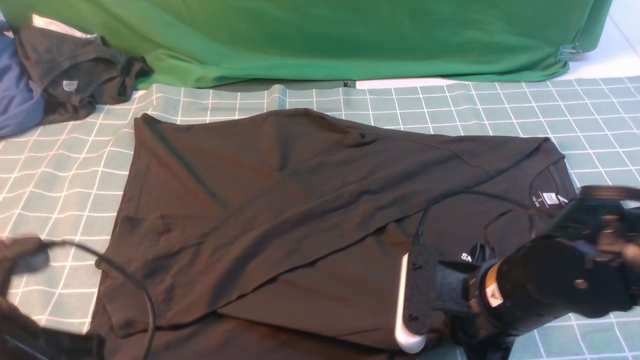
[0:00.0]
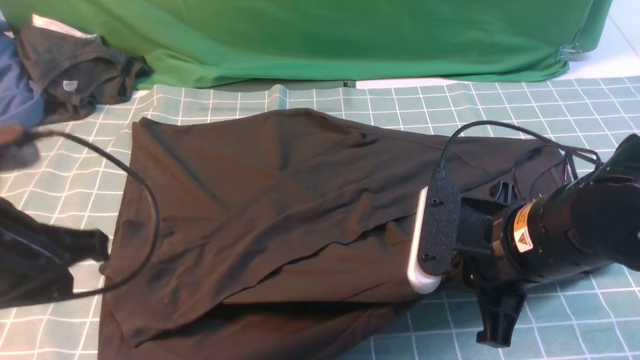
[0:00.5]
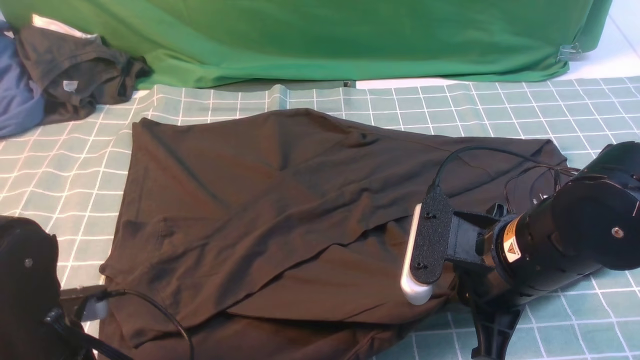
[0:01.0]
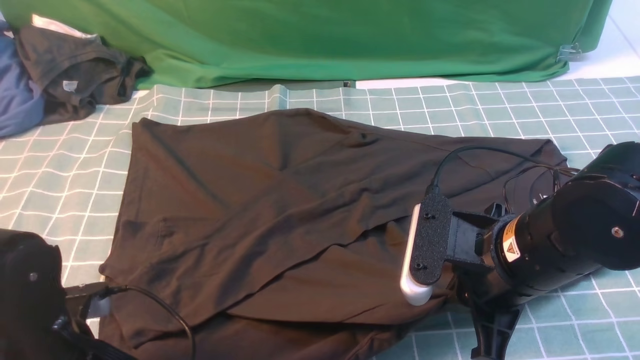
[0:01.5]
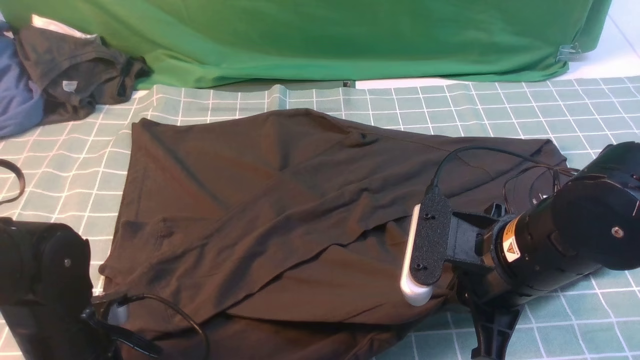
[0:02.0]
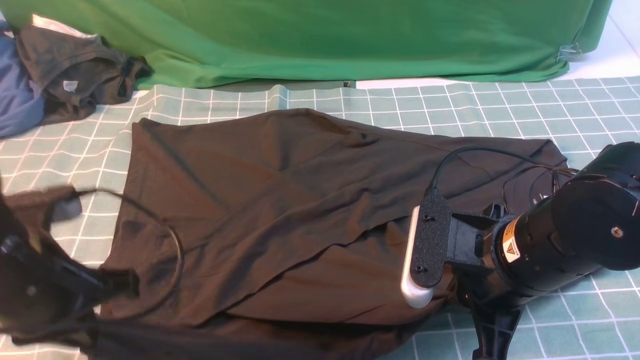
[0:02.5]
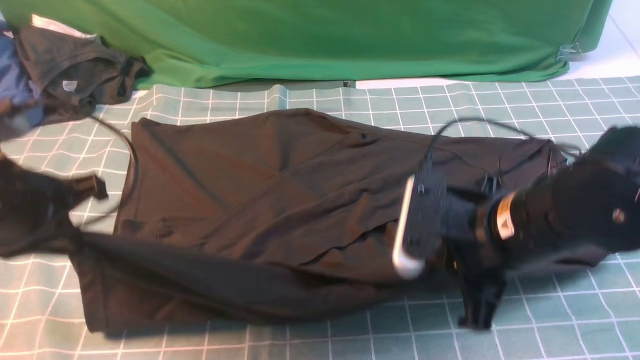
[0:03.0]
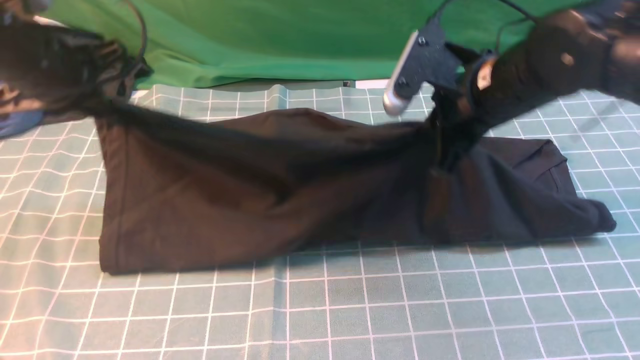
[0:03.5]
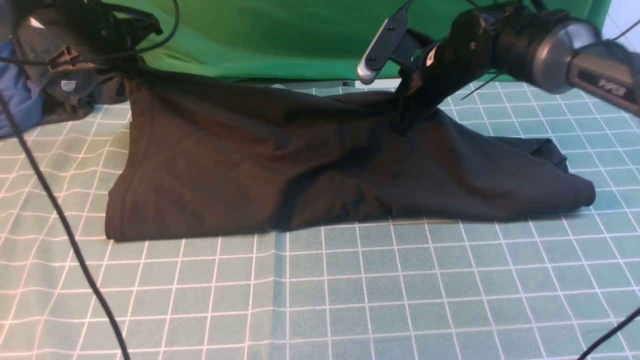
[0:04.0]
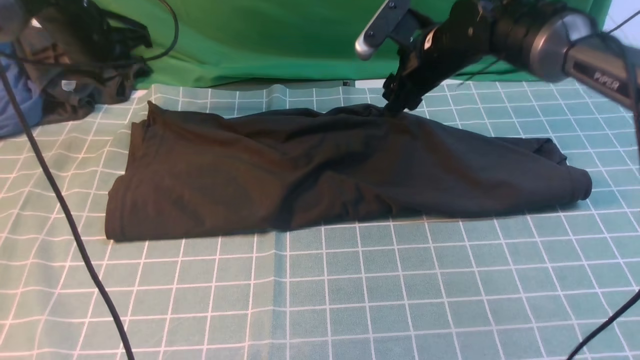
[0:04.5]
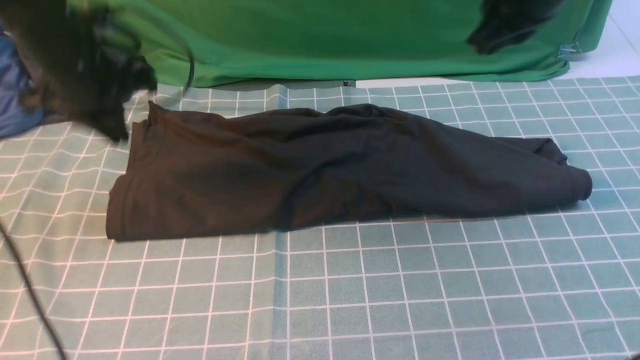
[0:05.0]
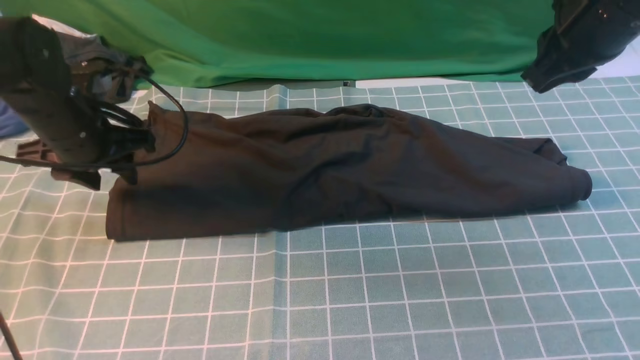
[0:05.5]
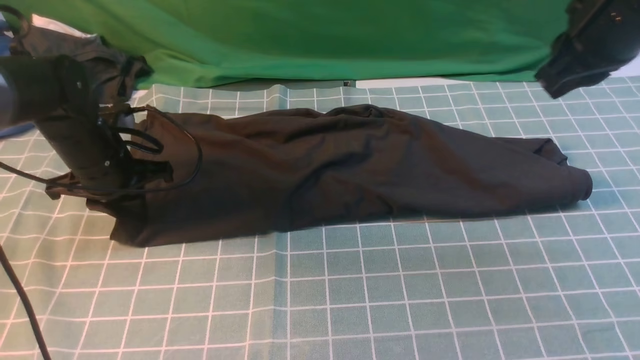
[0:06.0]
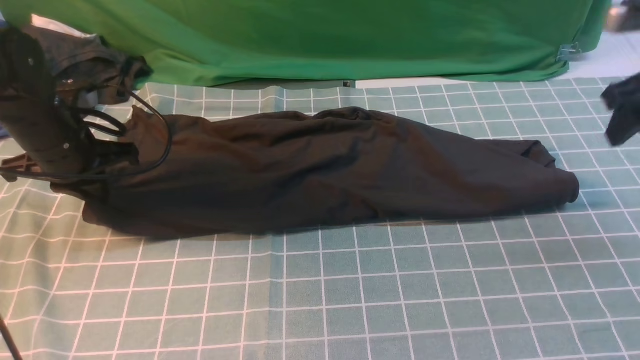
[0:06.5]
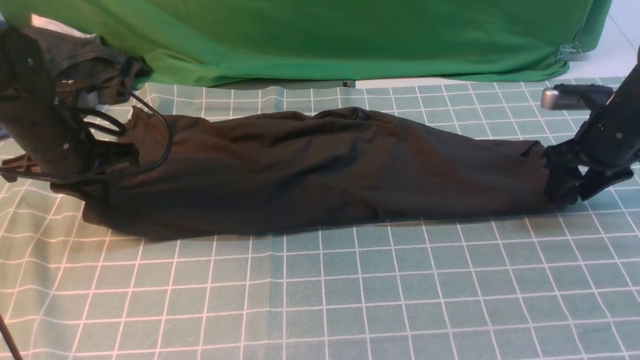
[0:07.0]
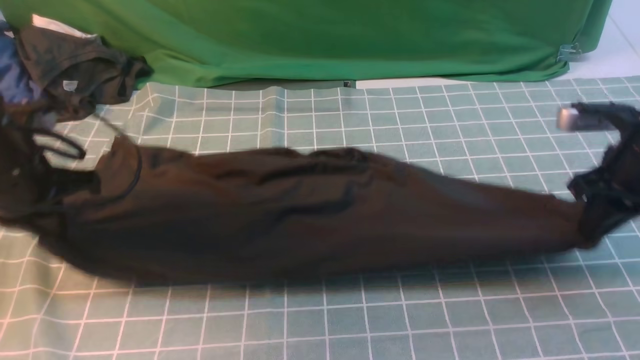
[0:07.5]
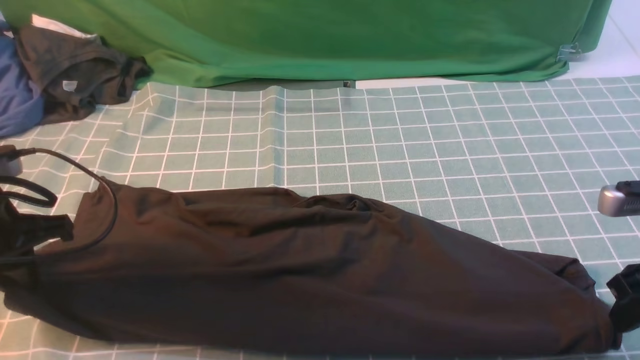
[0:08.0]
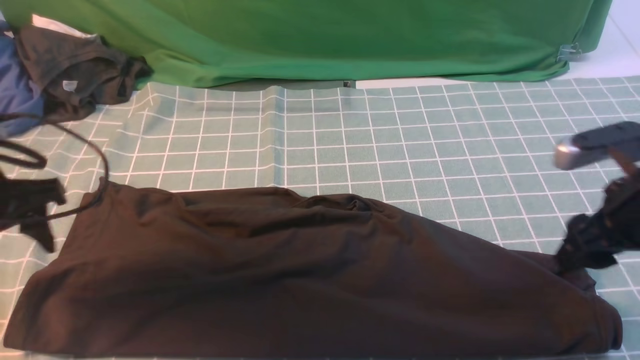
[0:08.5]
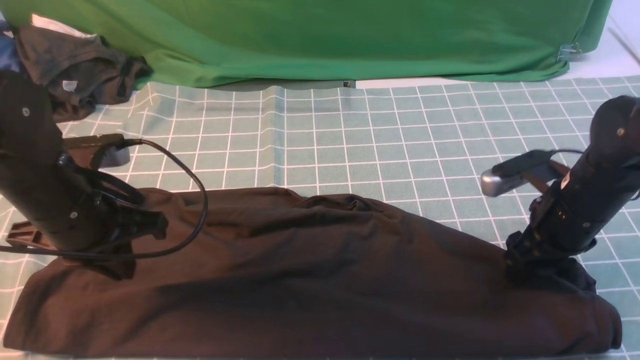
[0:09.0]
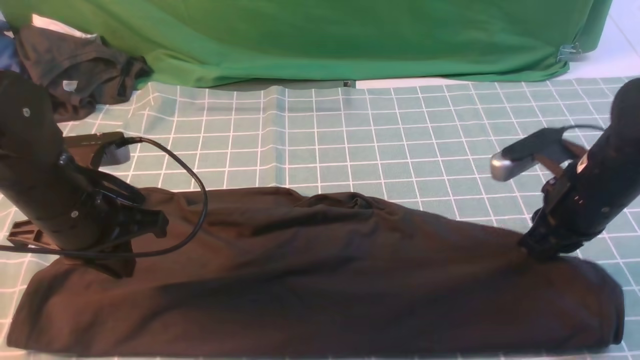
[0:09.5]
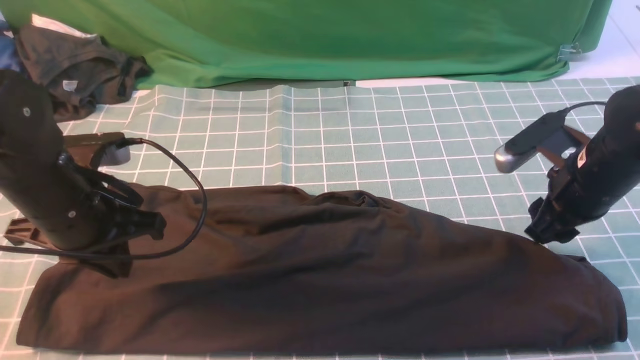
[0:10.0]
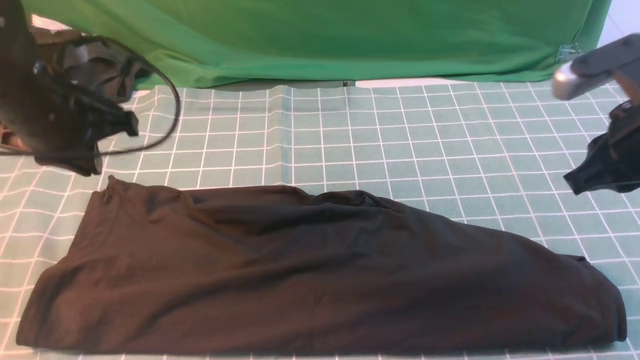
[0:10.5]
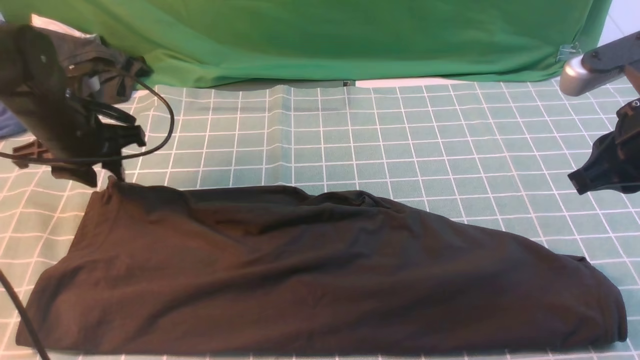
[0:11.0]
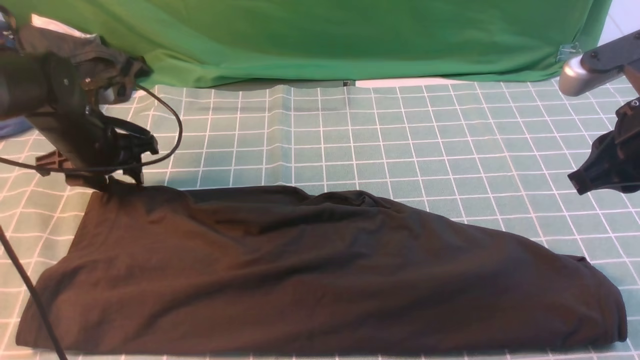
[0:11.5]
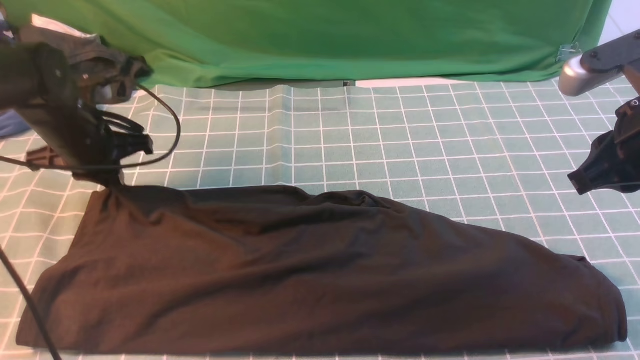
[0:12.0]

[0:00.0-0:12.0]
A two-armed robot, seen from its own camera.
Step, 0:00.0 to 0:02.5: use both arms simultaneously to clamp the lower edge of the clothing fabric.
Step, 0:03.0 to 0:04.5: use both arms to drag the lower edge of the fabric forward and fold it over the upper edge.
0:00.0 to 0:02.0: The left gripper heads downward, covering approximately 10 cm, and opens, then closes once more.
0:02.0 to 0:04.0: The grippers both shift forward by roughly 30 cm.
0:04.0 to 0:06.0: The left gripper moves backward and downward, roughly 15 cm, and opens up. Meanwhile the right gripper heads upward, to the right and backward, covering about 20 cm, and opens and closes again.
0:06.0 to 0:08.0: The right gripper is displaced downward, backward and to the right by roughly 20 cm, and opens. The left gripper is displaced backward by approximately 15 cm.
0:08.0 to 0:10.0: The right gripper heads forward and to the left, covering about 10 cm, and closes, then reopens, while the left gripper shifts some 10 cm to the right, and opens, then closes again.
0:10.0 to 0:12.0: The left gripper shifts about 15 cm forward and to the left, and opens, then closes once more, while the right gripper goes about 10 cm upward and backward, and closes.

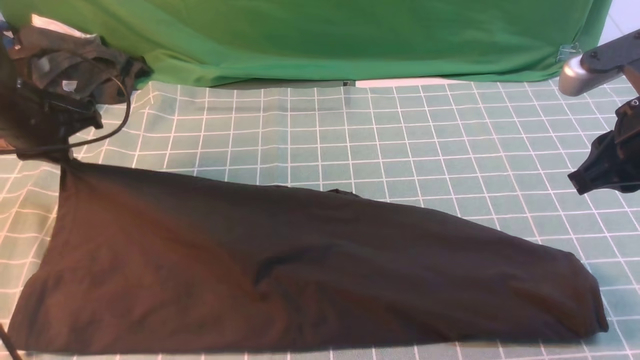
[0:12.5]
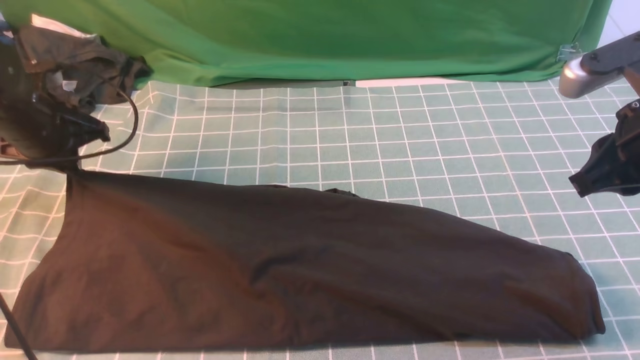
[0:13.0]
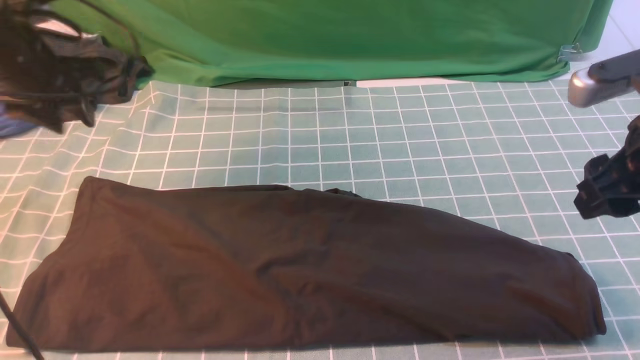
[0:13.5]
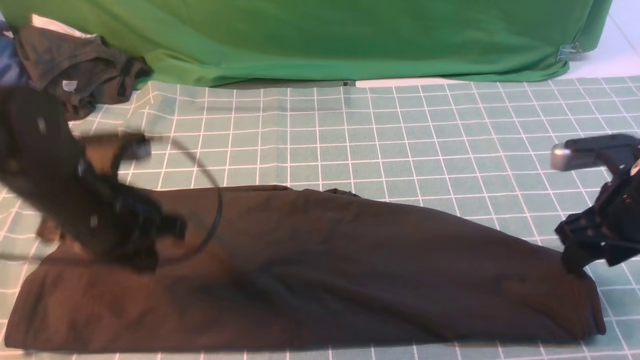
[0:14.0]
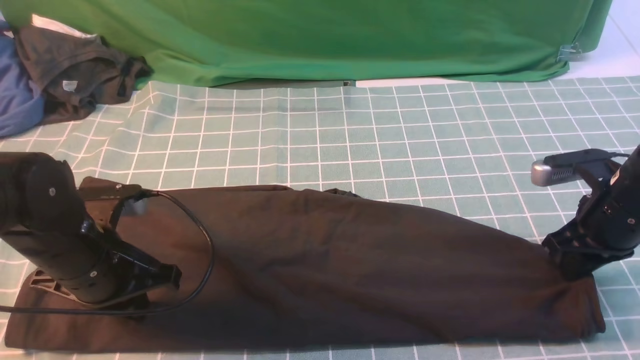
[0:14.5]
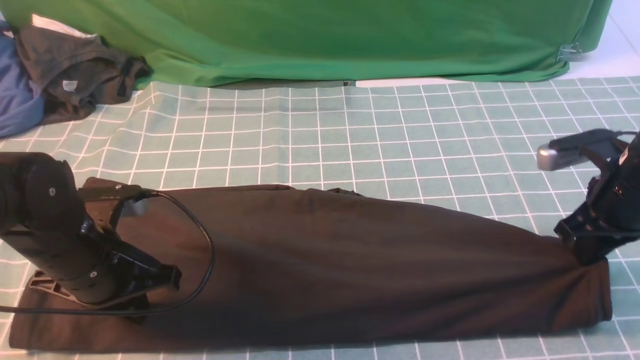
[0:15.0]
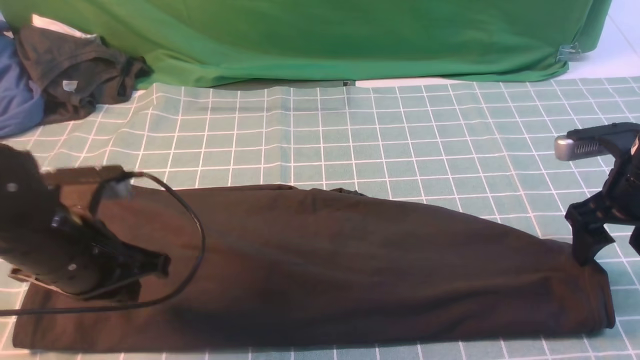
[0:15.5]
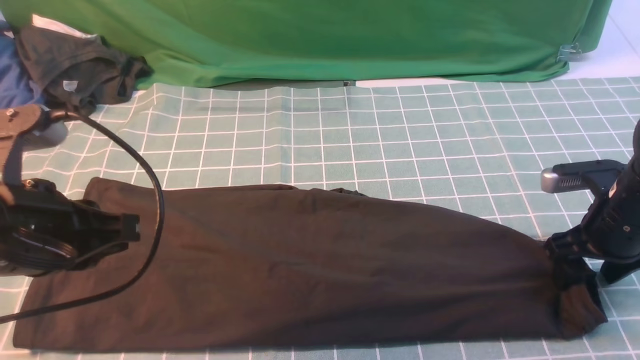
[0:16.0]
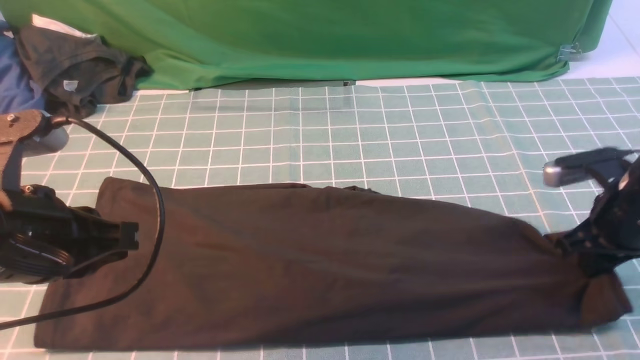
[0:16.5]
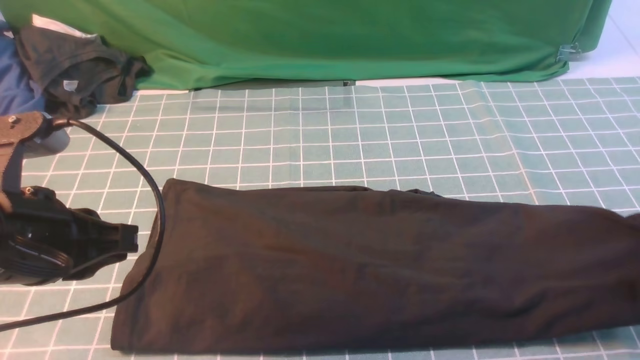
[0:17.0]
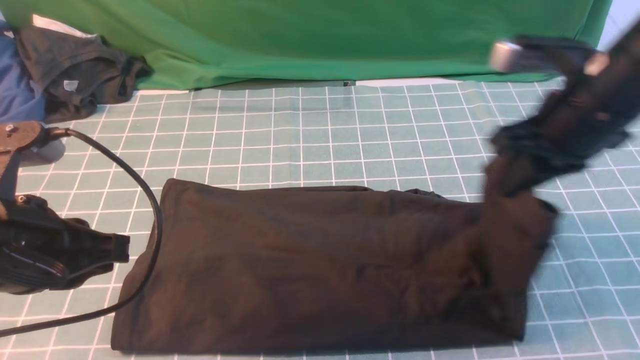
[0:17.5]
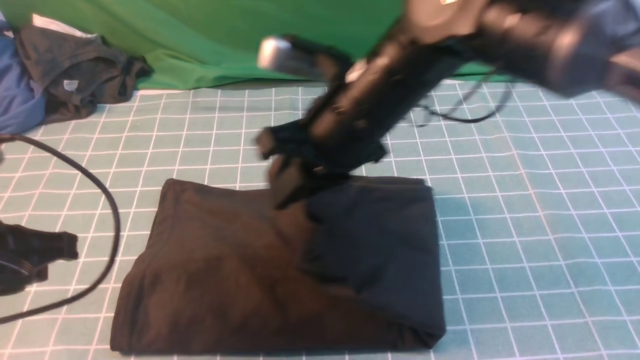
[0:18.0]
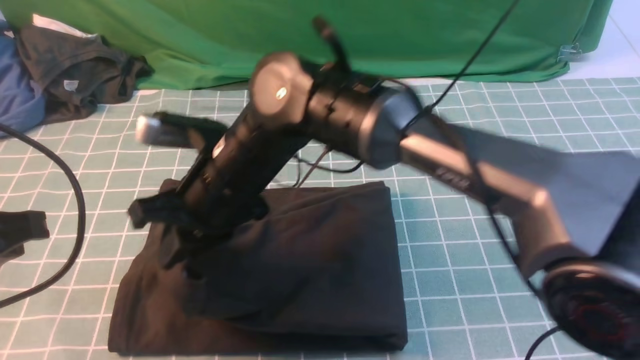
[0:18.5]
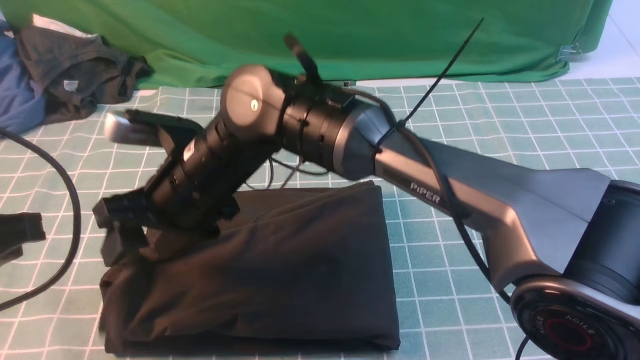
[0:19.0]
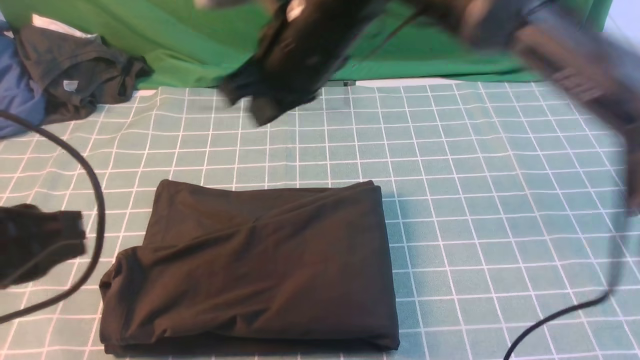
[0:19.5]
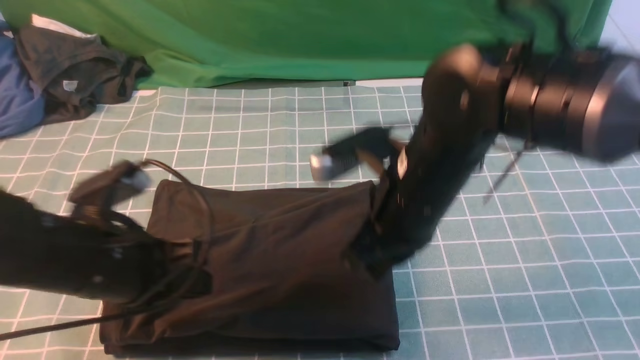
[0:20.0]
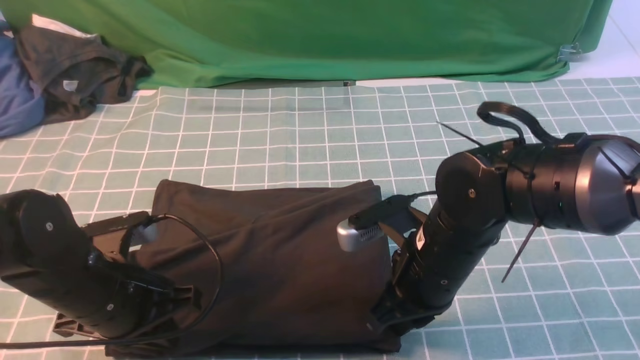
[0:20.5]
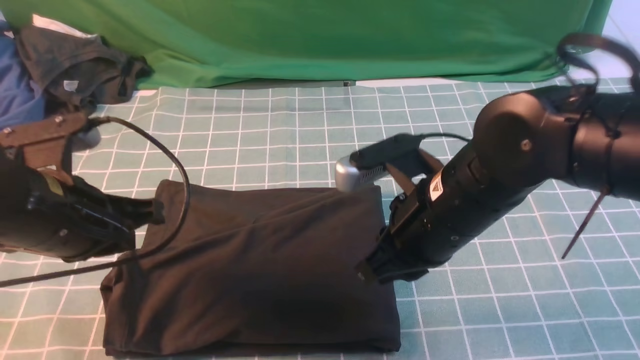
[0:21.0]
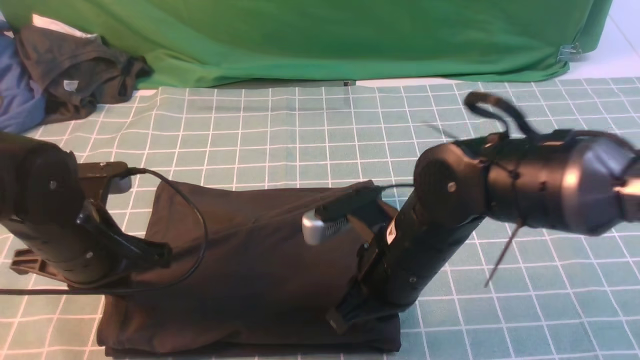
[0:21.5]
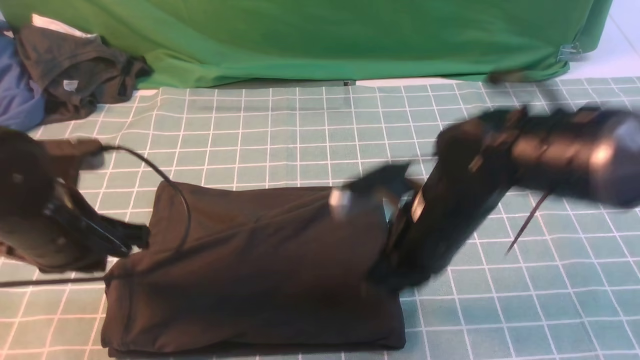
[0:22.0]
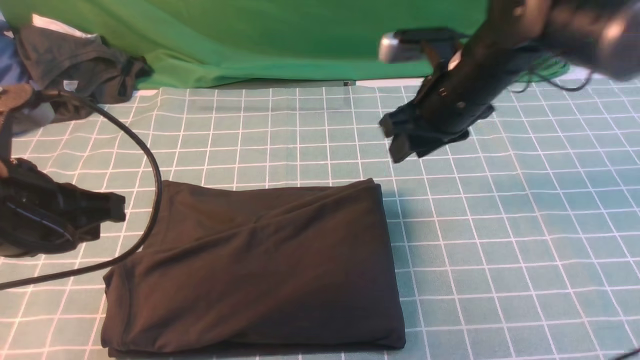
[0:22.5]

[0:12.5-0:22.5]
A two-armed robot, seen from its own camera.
Step, 0:12.5 to 0:17.0: use the right arm to clamp the right edge of the fabric.
Step, 0:17.5 to 0:19.0: use the right arm to drag the right edge of the fabric to the left and folds it over the left edge.
0:12.5 to 0:14.5: The left gripper moves backward and to the right, roughly 20 cm, and opens and closes again; the right gripper shifts about 15 cm downward, and opens, then closes again.
0:14.5 to 0:16.5: The right gripper opens and closes again. Meanwhile the left gripper shifts some 15 cm upward and backward.
0:16.5 to 0:18.5: The left gripper changes place by some 5 cm, while the right gripper goes approximately 40 cm to the left.
0:18.5 to 0:20.5: The left gripper travels downward, forward and to the right by roughly 15 cm. Meanwhile the right gripper is displaced to the right by approximately 20 cm, and opens, then closes once more.
0:20.5 to 0:22.5: The right gripper moves forward and upward, some 15 cm, and opens. Meanwhile the left gripper goes some 15 cm upward.
